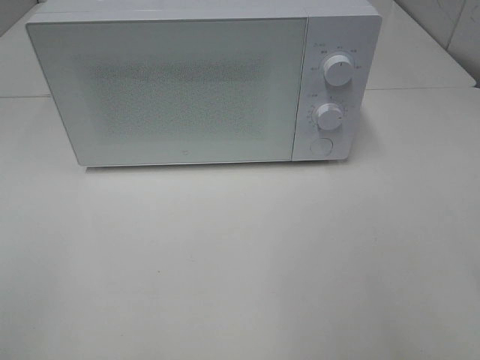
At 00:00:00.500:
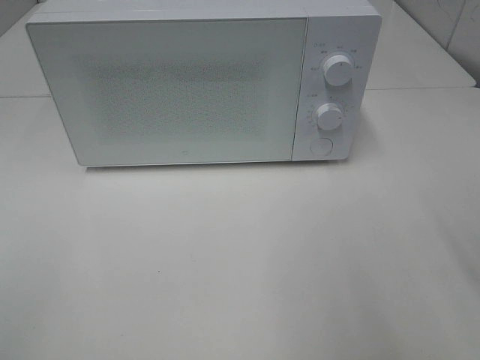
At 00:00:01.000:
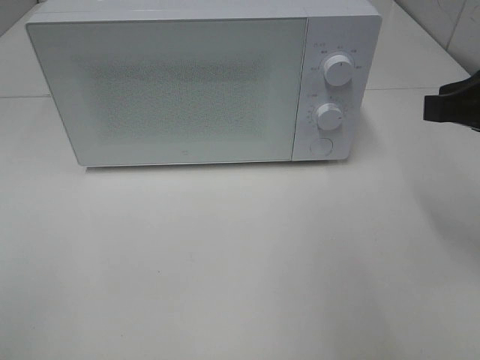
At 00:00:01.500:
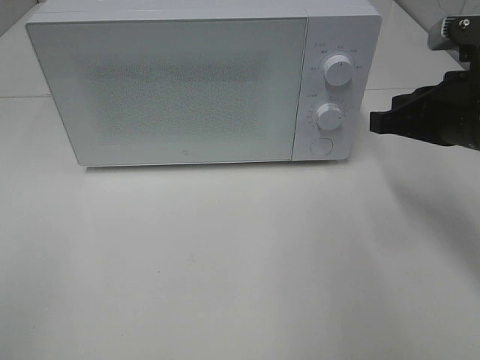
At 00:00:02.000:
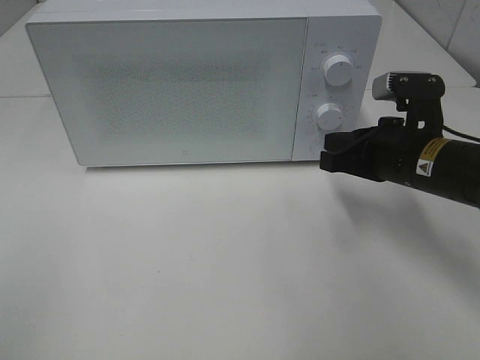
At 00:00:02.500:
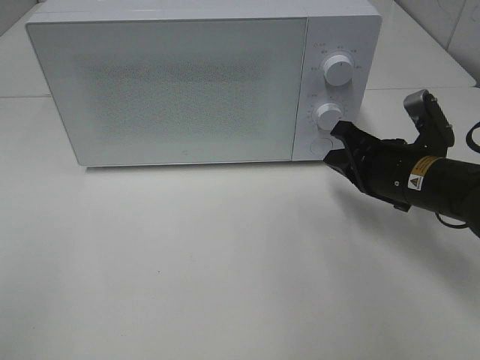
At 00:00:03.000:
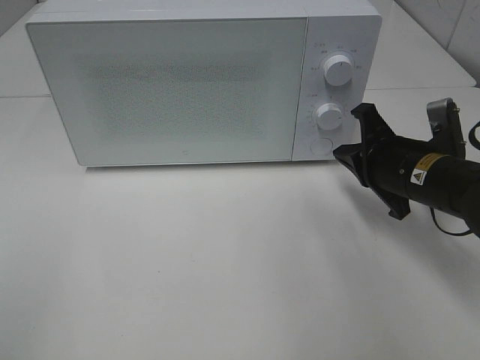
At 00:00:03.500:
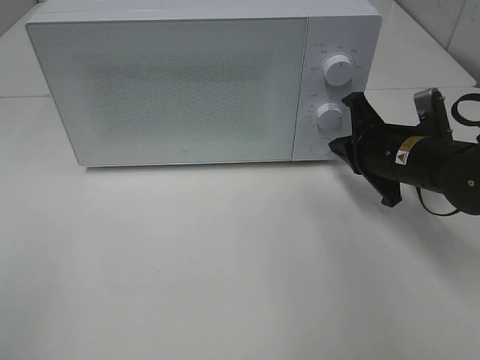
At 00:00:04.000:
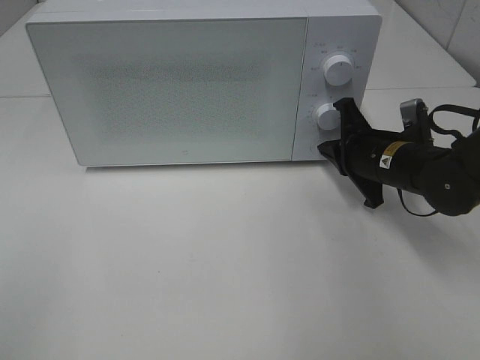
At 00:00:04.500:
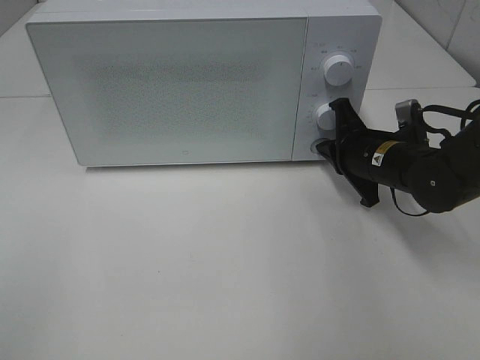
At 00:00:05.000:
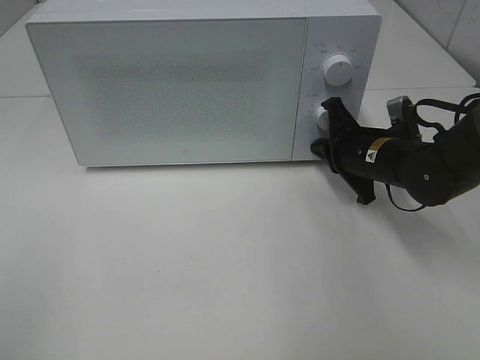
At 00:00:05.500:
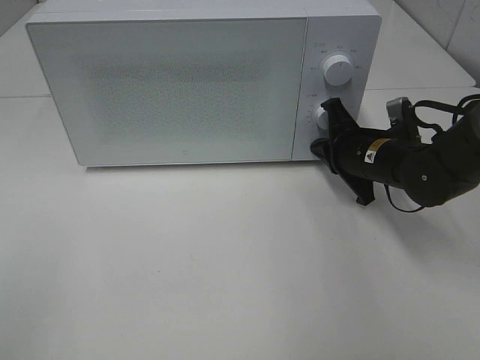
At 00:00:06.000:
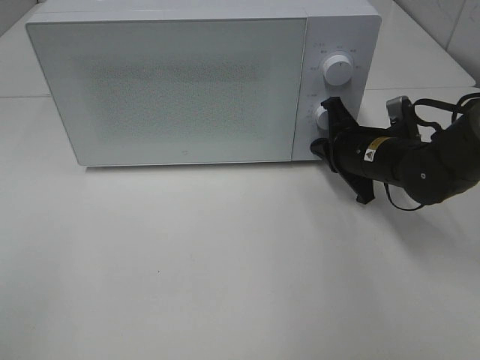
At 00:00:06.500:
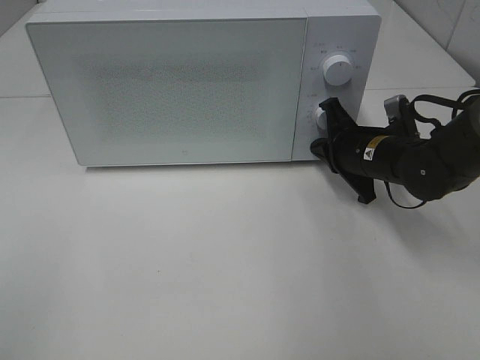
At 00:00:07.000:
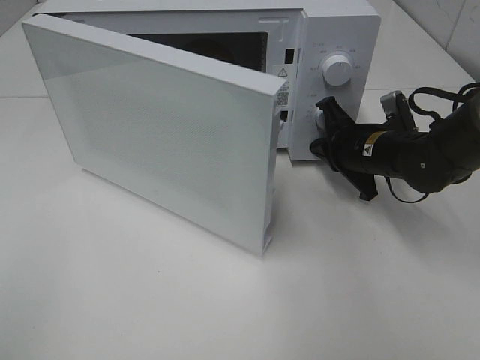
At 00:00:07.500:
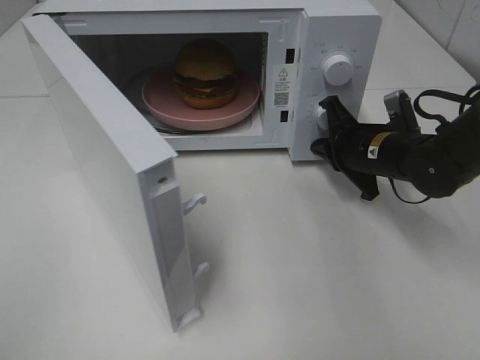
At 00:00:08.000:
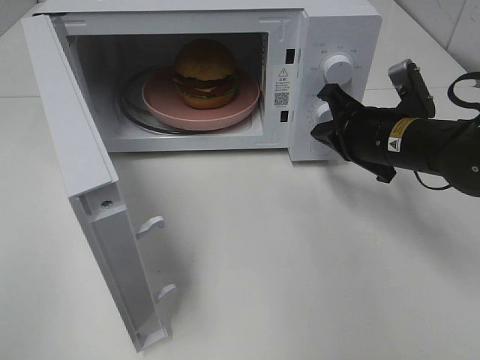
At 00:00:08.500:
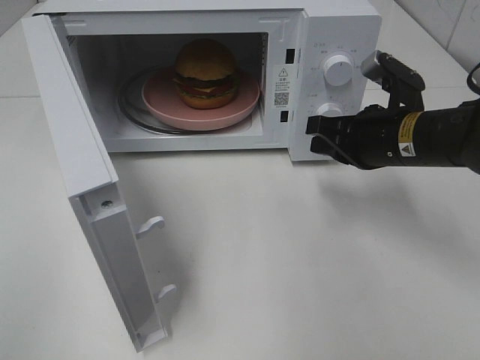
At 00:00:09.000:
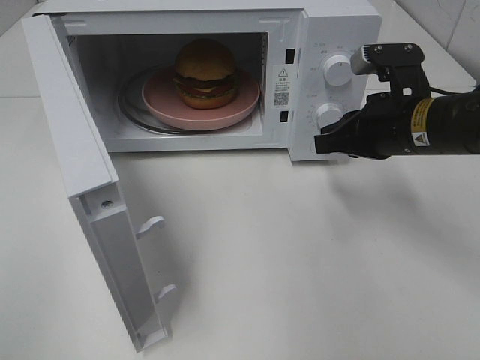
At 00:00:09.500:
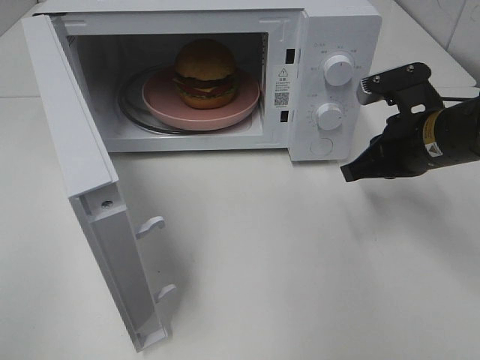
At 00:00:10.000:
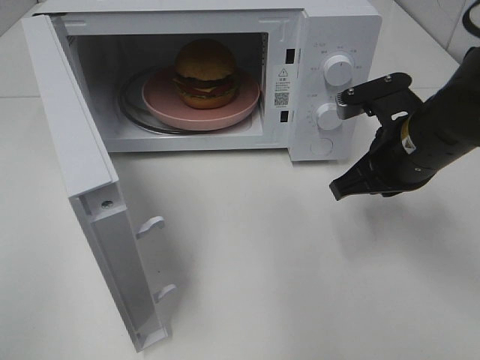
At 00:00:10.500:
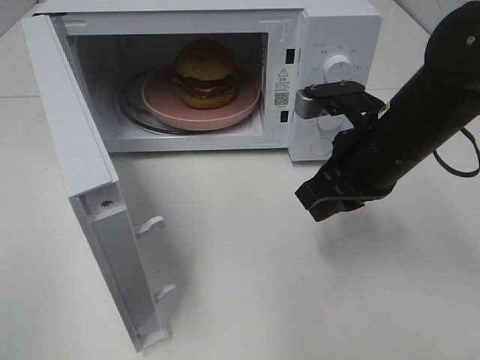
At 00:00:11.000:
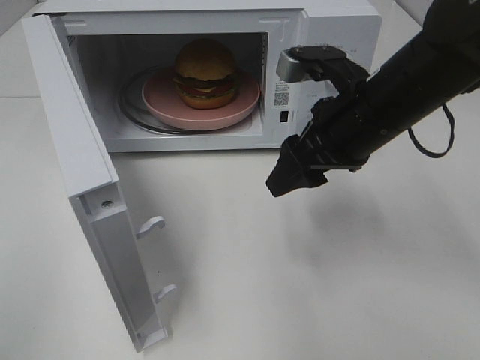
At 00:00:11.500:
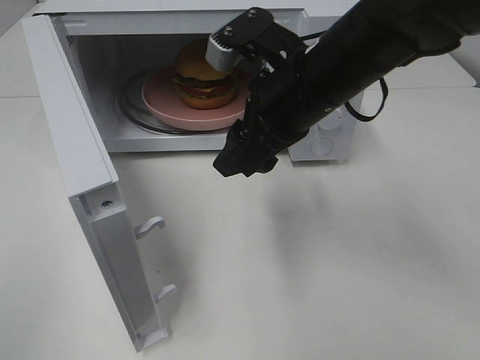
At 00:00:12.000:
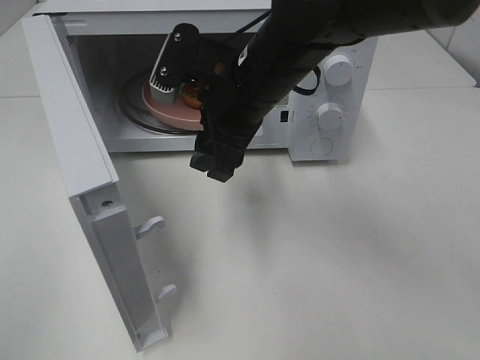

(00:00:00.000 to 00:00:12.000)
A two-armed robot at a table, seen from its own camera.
Task of the whole recording: Heat the burger.
Step, 00:00:00.000 - 00:00:07.500: Right hand: press the switch.
00:00:00.000 - 00:00:02.000: The right gripper is displaced forward, downward and to the left by some 30 cm, and closes up.
00:00:02.000 - 00:00:04.000: The right gripper moves forward, approximately 5 cm.
00:00:04.000 - 00:00:06.000: The grippers stay close to where they were, moving slightly.
00:00:06.000 - 00:00:08.000: The right gripper ends up some 5 cm from where it was.
00:00:08.000 - 00:00:10.000: The right gripper changes place by approximately 5 cm.
00:00:10.000 - 00:00:12.000: The right gripper shifts about 15 cm to the left, and opens up.

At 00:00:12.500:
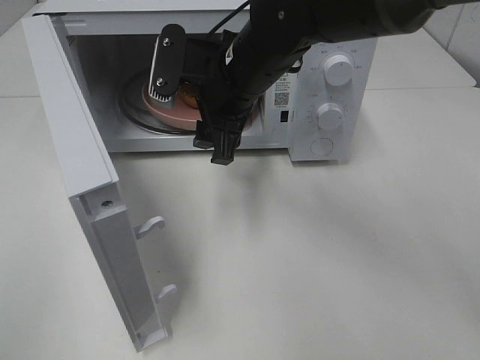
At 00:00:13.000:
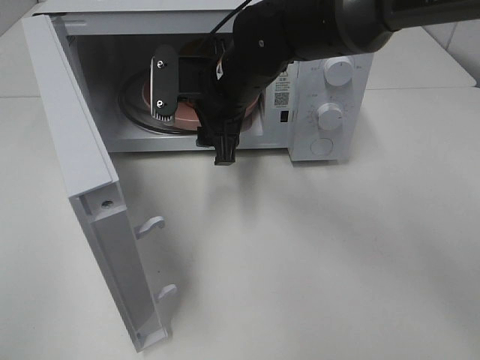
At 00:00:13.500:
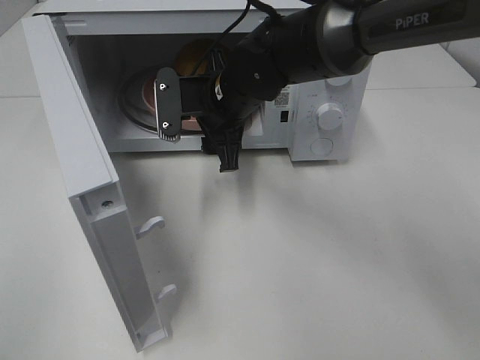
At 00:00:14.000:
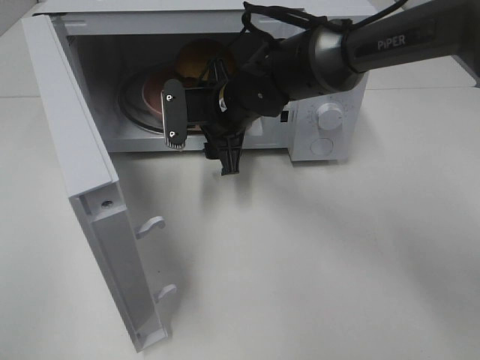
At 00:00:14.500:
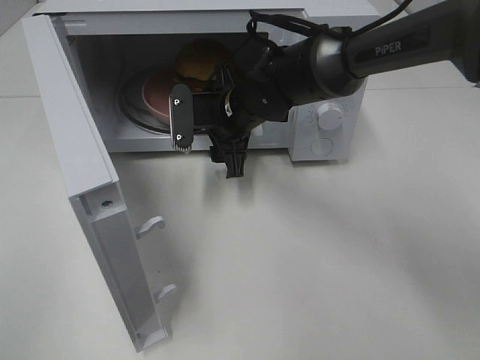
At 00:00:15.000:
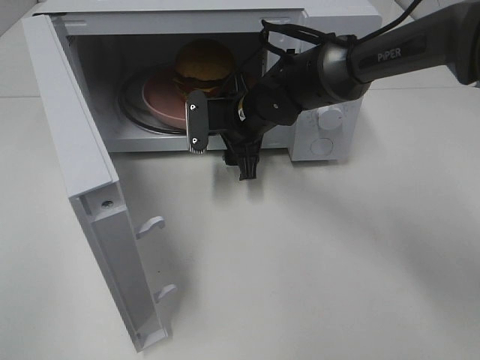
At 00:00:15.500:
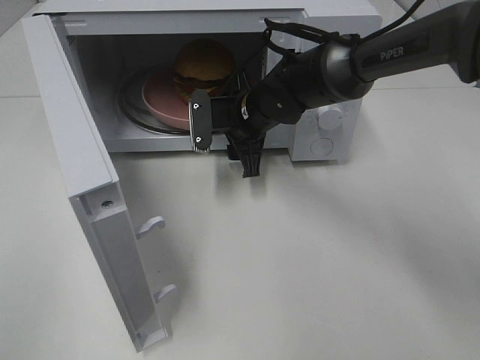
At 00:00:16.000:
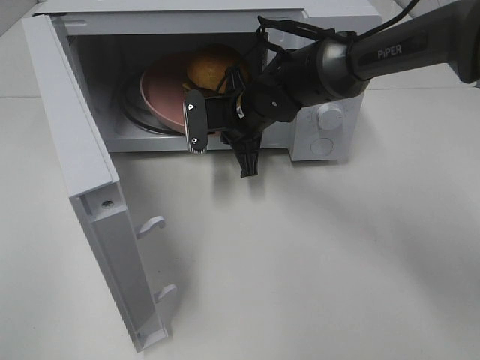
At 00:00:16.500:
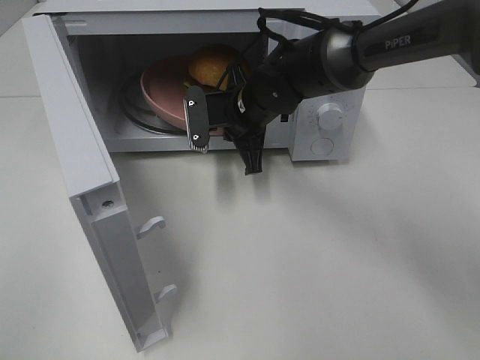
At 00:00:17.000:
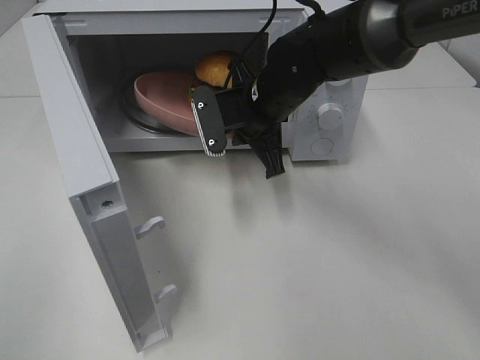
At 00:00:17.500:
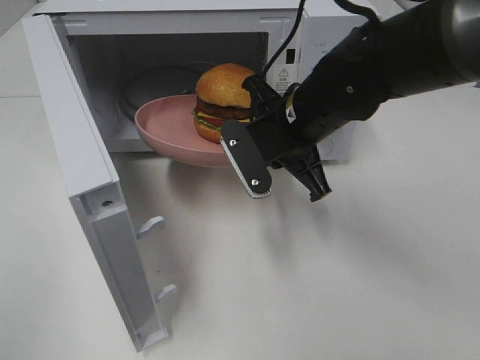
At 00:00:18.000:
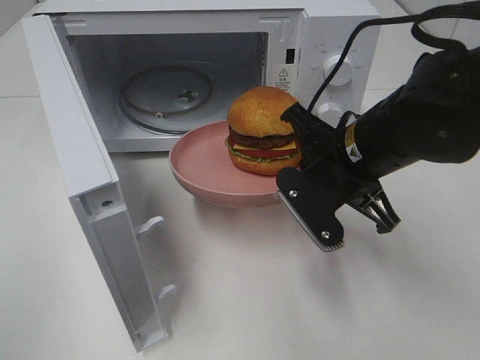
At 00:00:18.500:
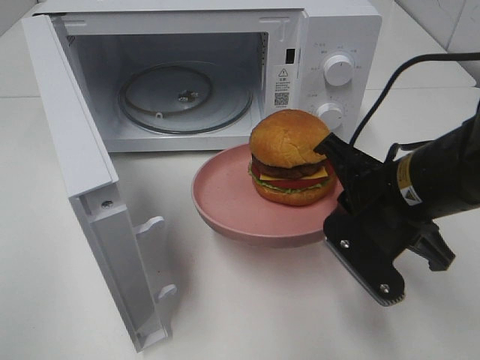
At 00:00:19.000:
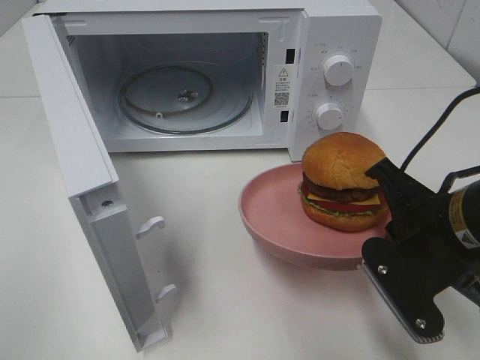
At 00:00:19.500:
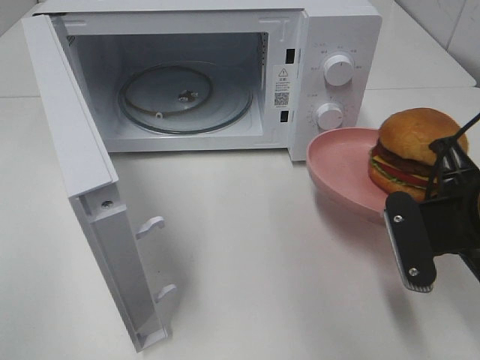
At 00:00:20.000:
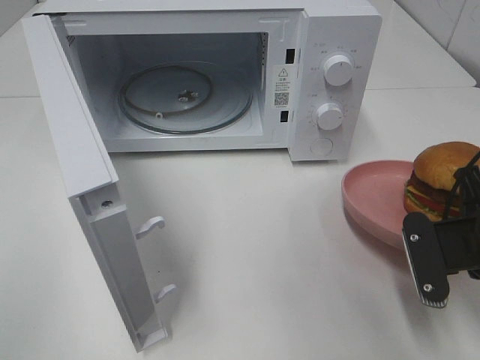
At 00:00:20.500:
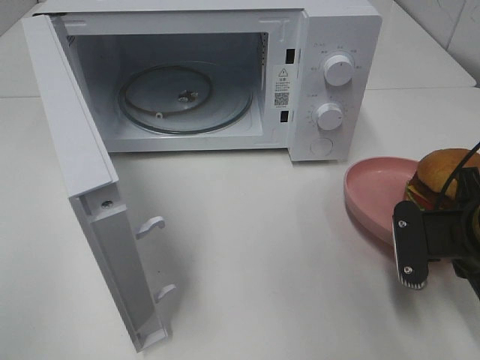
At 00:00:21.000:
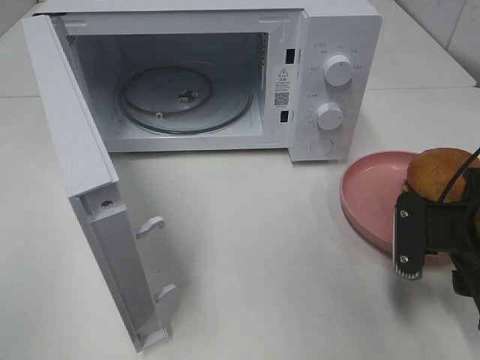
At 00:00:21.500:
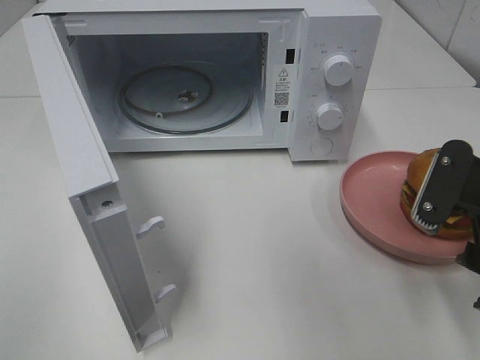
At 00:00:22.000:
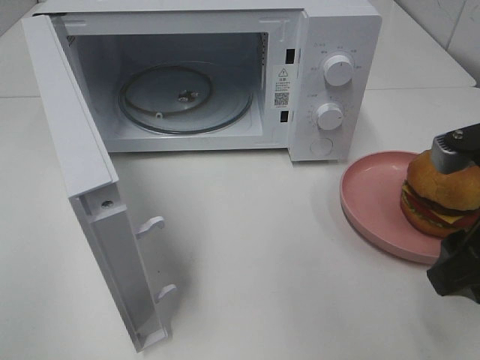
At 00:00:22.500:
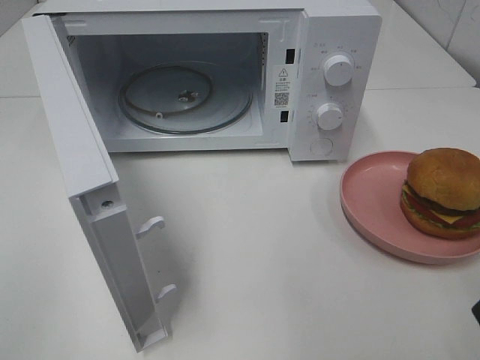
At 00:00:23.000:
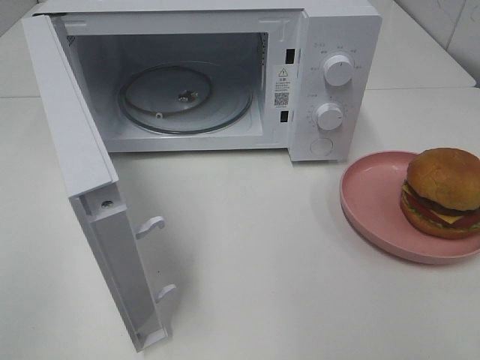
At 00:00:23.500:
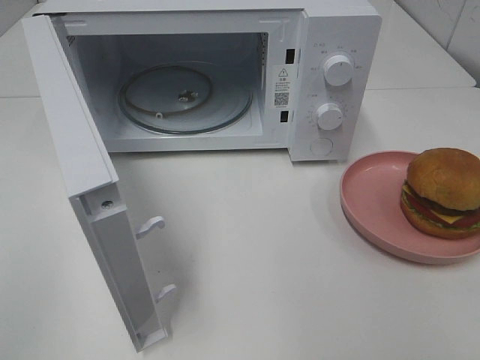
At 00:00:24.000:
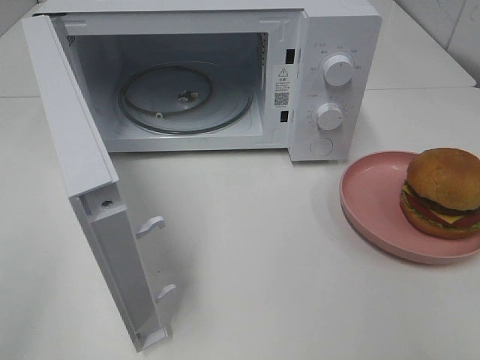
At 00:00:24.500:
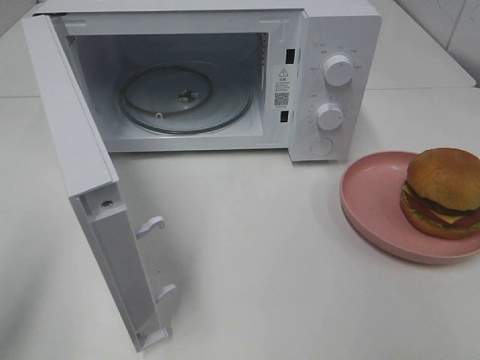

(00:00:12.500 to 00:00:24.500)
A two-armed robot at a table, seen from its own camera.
Task of the whole recording: Heat the burger.
Step, 00:00:12.500 - 00:00:15.500: Right hand: grab the plate with the hamburger.
Step, 00:00:16.000 - 00:00:20.500: Right hand: place the plate on the table.
00:00:12.500 - 00:00:14.500: The right gripper is displaced downward and forward by some 10 cm.
00:00:14.500 - 00:00:16.500: The right gripper closes up.
00:00:16.500 - 00:00:18.500: The right gripper heads backward and to the right, covering roughly 25 cm.
00:00:18.500 - 00:00:20.500: The right gripper travels to the right by roughly 10 cm.
00:00:20.500 - 00:00:22.500: The right gripper moves upward and backward, about 15 cm, and opens.
00:00:22.500 - 00:00:24.500: The left gripper goes approximately 10 cm forward.

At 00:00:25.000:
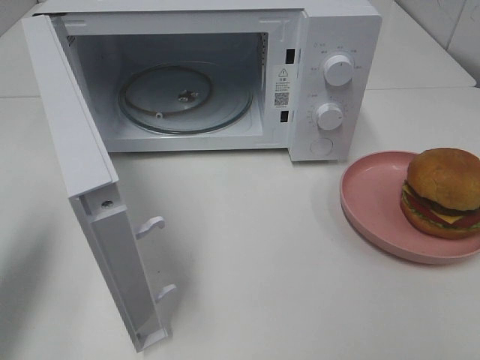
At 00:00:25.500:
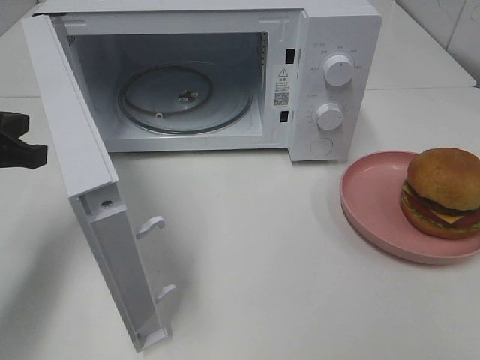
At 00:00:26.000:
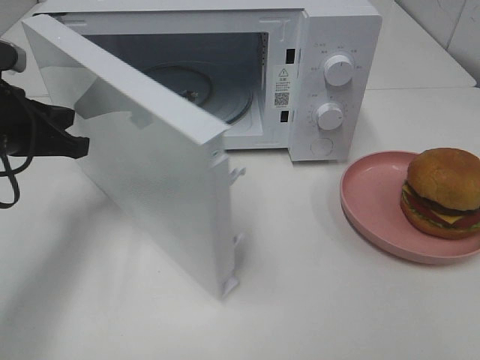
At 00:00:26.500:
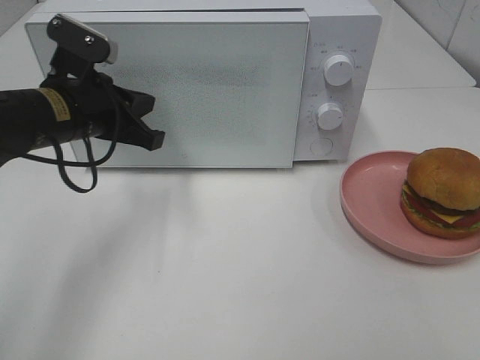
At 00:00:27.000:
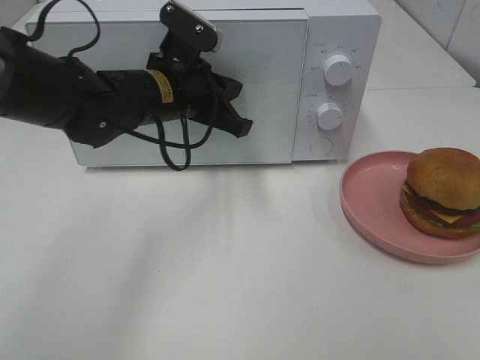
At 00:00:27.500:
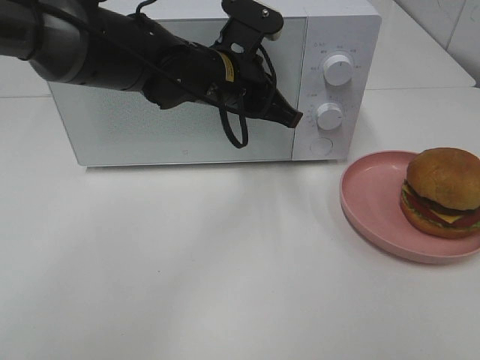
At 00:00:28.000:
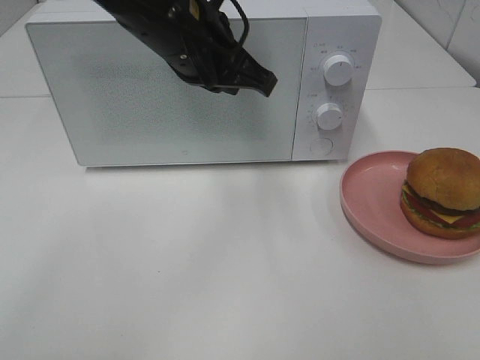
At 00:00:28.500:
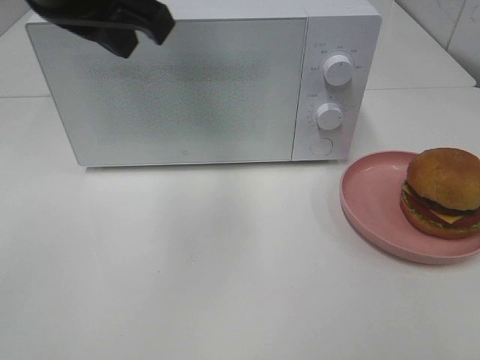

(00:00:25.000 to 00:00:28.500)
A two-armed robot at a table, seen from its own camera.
Task of the whole recording: Heat the burger.
Step, 00:00:25.000 - 00:00:27.000: Left hand: close the microwave door.
00:00:25.000 - 00:00:27.000: The left gripper heads to the right and forward, covering some 30 cm.
00:00:27.000 - 00:00:28.500: The left gripper travels upward and backward by some 20 cm.
